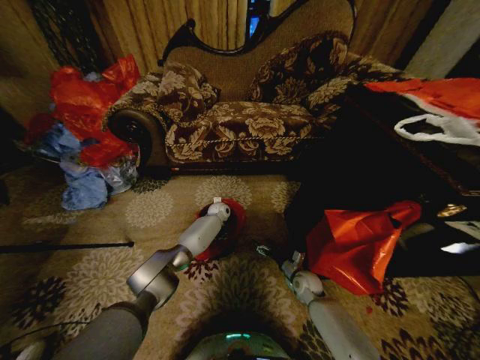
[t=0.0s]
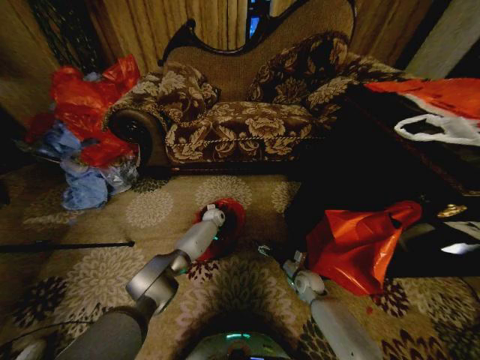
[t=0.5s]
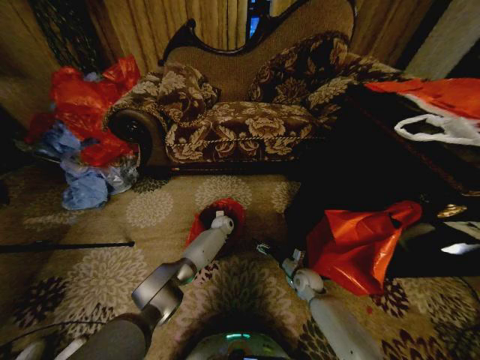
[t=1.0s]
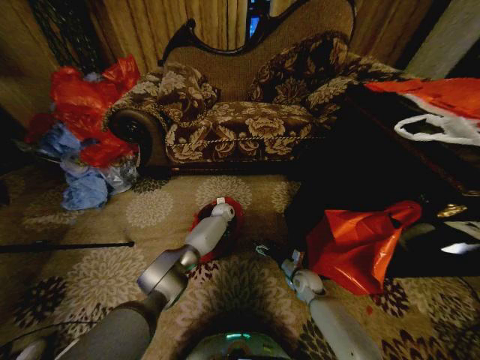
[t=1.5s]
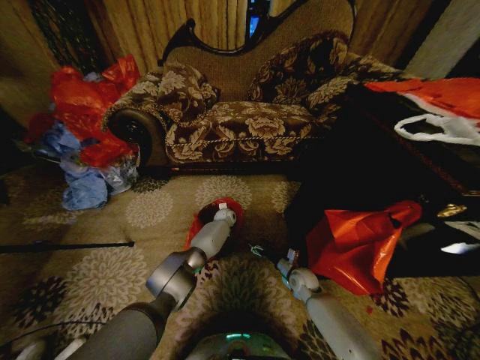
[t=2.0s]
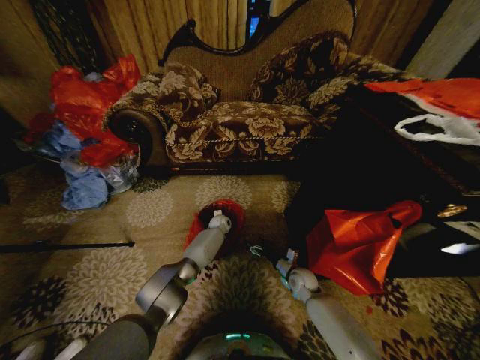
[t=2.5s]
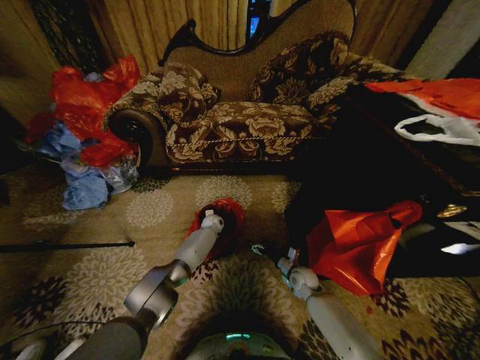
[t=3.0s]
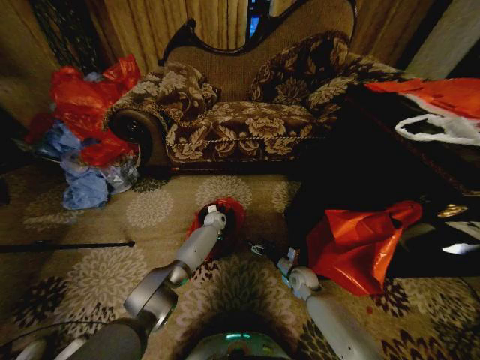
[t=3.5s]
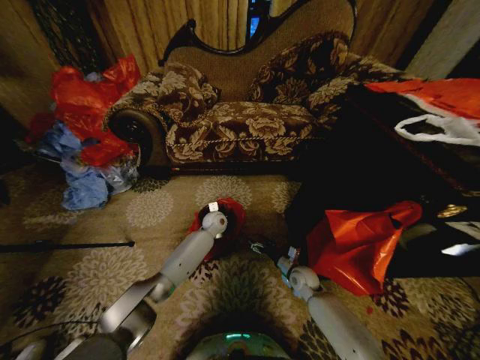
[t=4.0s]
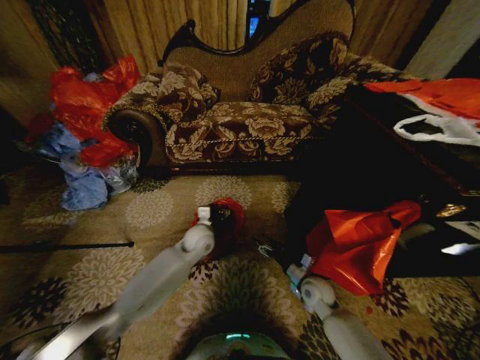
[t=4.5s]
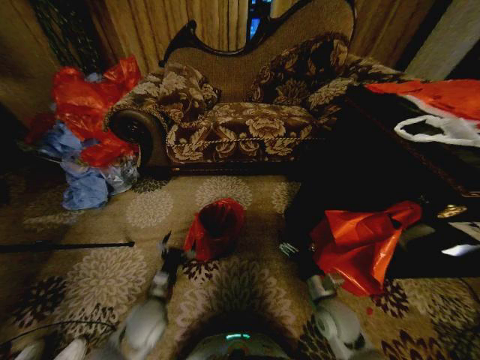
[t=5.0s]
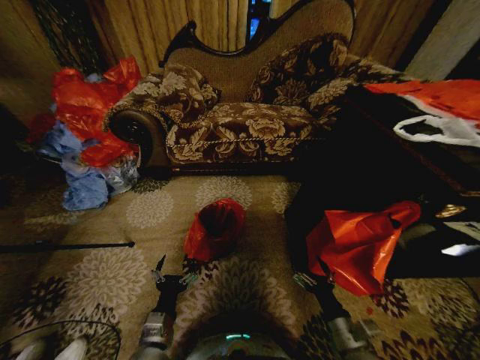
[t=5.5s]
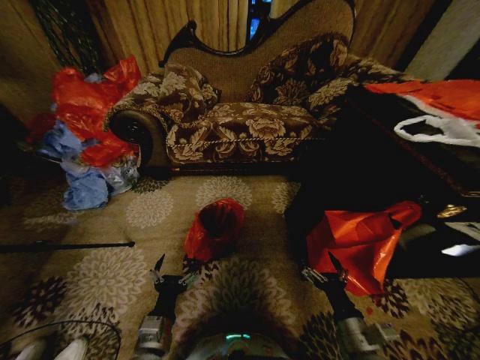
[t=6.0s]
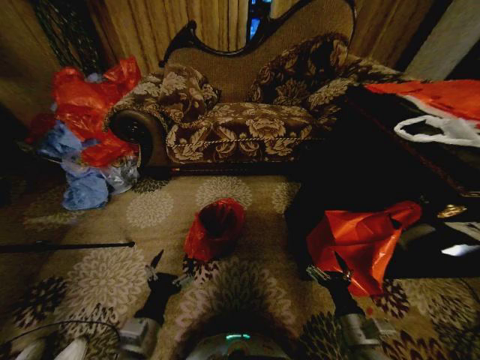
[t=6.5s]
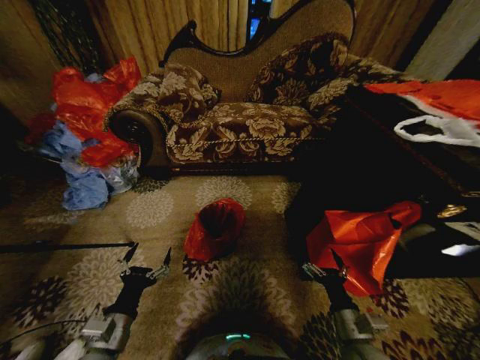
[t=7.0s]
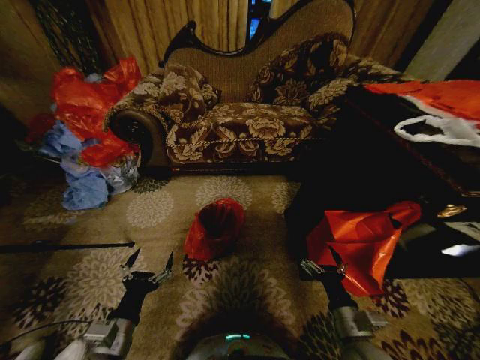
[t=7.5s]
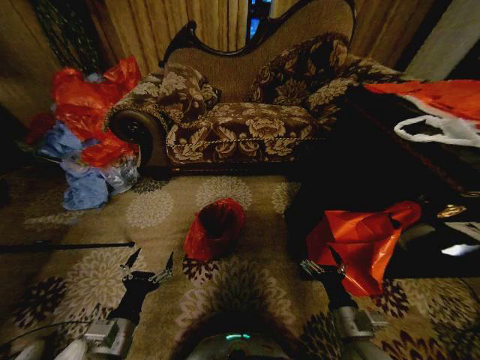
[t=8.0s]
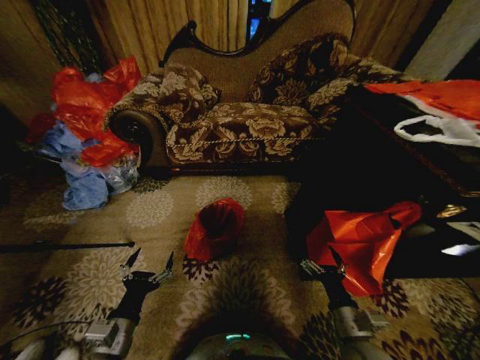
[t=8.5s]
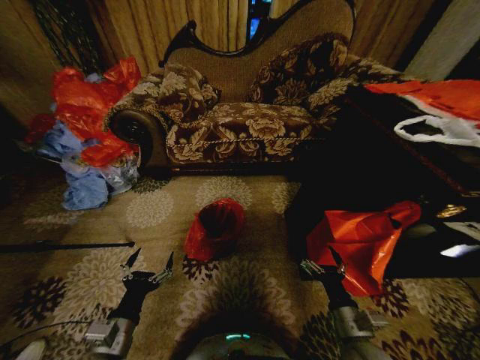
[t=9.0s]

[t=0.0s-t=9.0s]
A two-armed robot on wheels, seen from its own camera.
Task of the whole recording: Place a garbage bag over the trash bin.
t=2.0s to t=4.5s: The left gripper travels backward and upward by roughly 25 cm, and opens up, while the right gripper is displaced backward and upward by roughly 10 cm.
t=4.5s to t=7.0s: The left gripper shifts about 30 cm backward and to the left; the right gripper shifts about 20 cm backward and upward.
t=7.0s to t=9.0s: The grippers move only a little.
